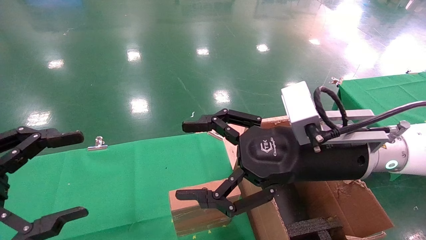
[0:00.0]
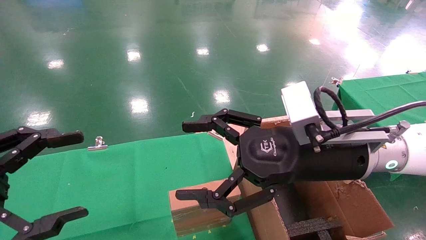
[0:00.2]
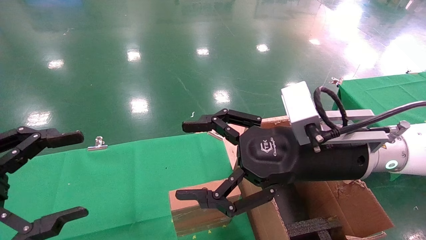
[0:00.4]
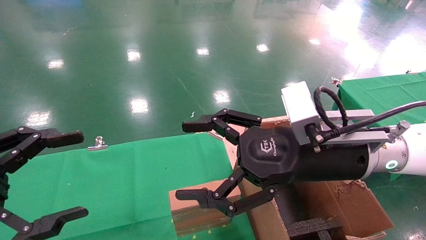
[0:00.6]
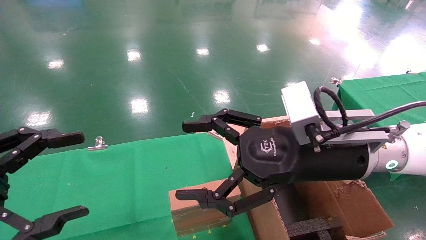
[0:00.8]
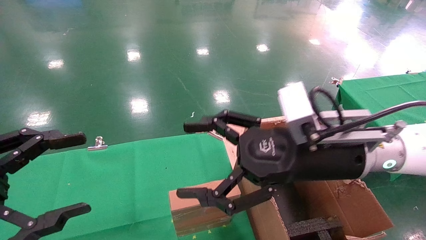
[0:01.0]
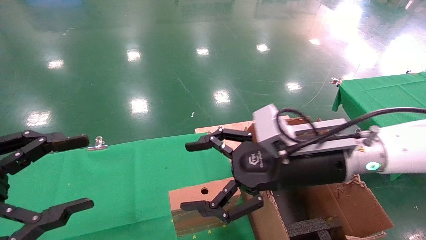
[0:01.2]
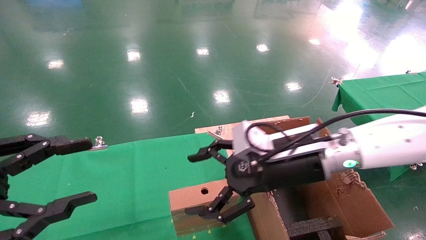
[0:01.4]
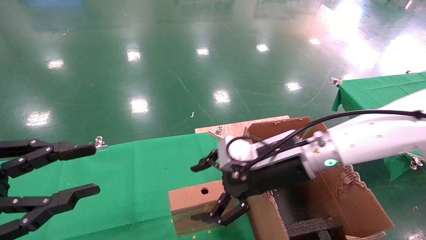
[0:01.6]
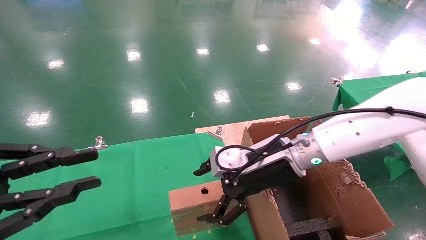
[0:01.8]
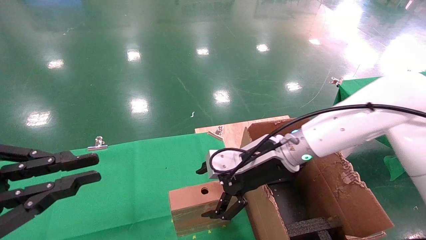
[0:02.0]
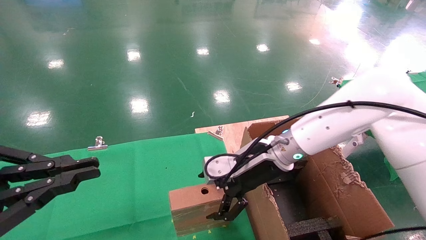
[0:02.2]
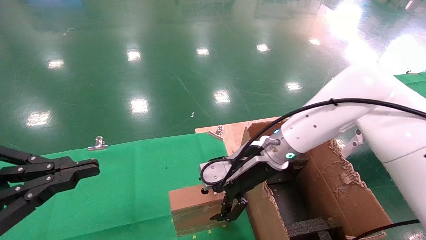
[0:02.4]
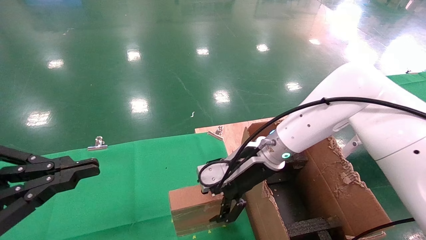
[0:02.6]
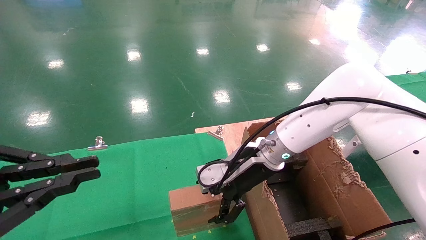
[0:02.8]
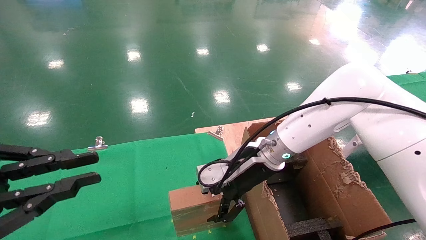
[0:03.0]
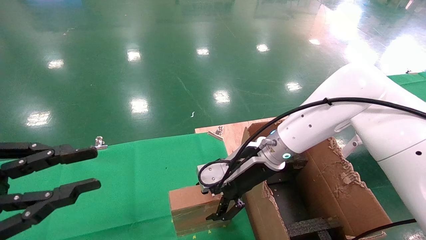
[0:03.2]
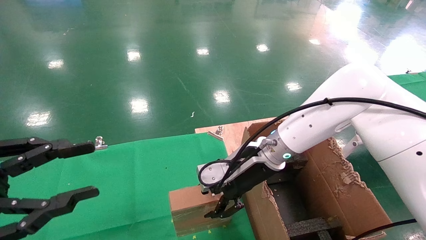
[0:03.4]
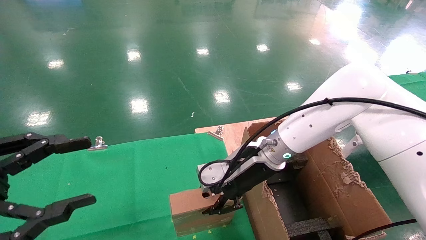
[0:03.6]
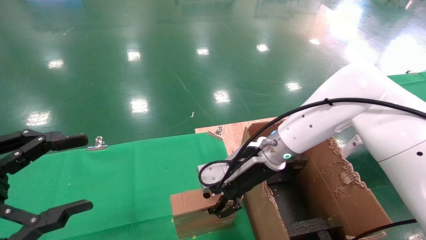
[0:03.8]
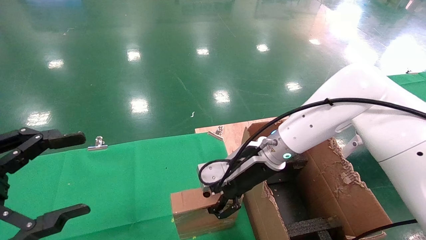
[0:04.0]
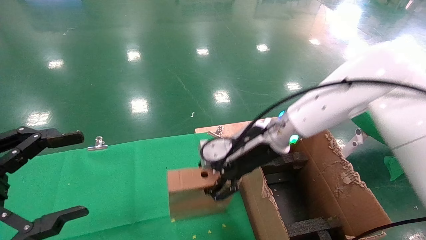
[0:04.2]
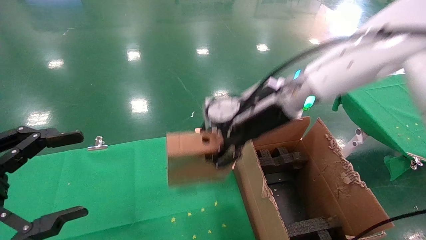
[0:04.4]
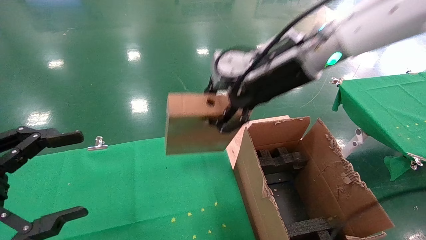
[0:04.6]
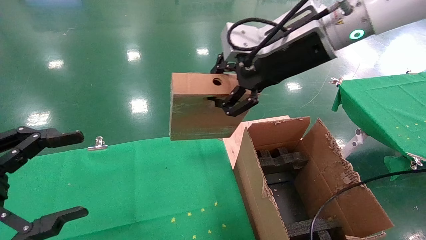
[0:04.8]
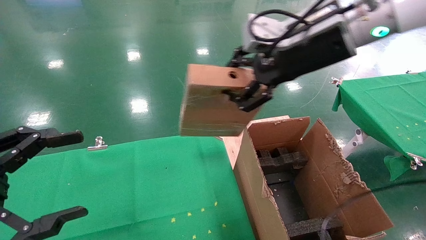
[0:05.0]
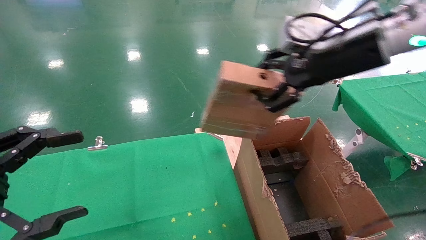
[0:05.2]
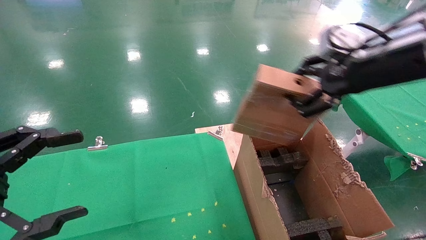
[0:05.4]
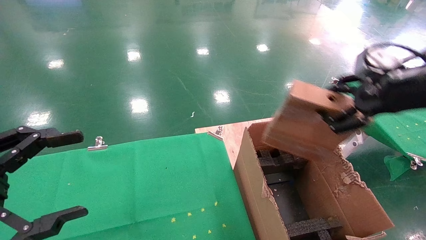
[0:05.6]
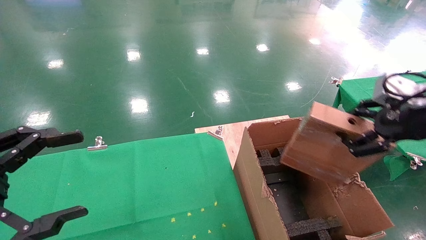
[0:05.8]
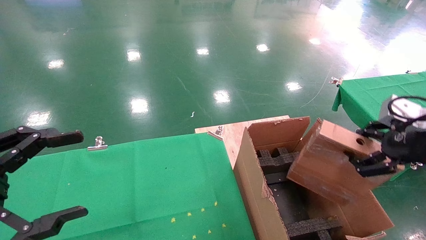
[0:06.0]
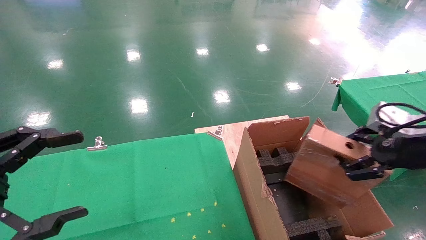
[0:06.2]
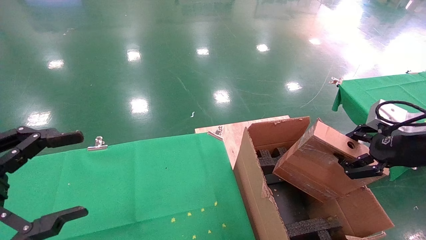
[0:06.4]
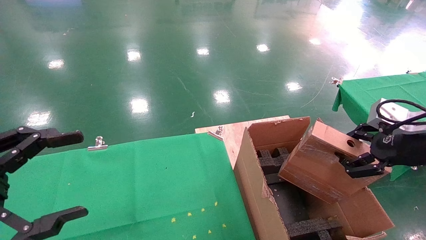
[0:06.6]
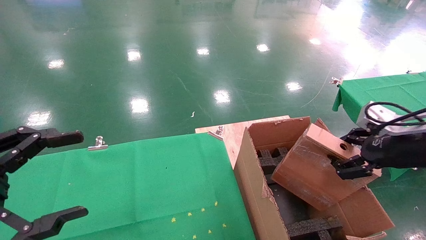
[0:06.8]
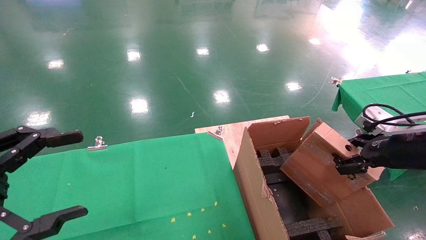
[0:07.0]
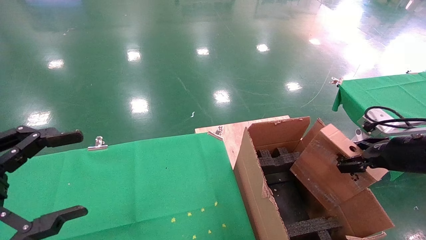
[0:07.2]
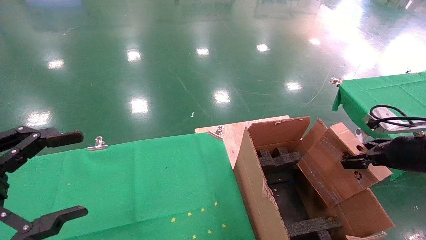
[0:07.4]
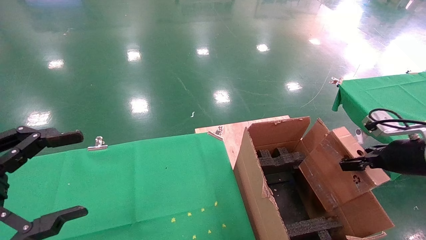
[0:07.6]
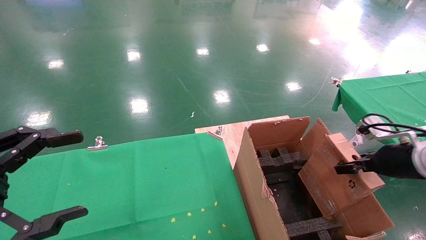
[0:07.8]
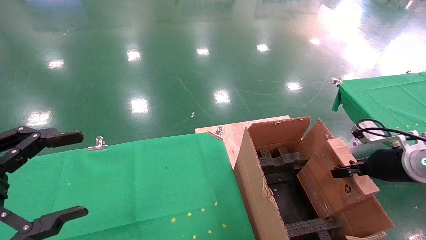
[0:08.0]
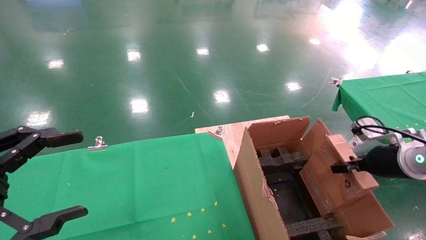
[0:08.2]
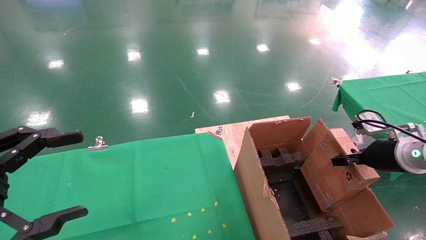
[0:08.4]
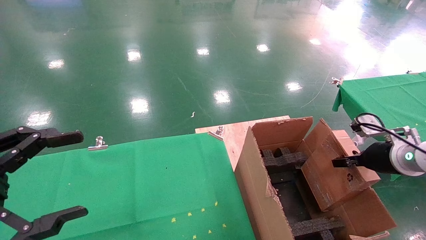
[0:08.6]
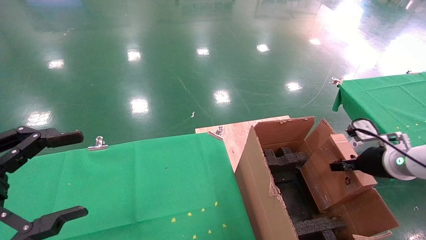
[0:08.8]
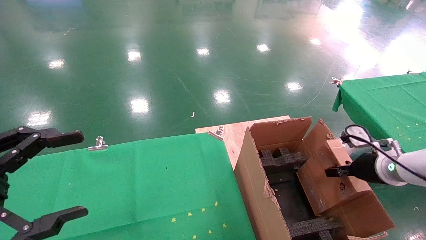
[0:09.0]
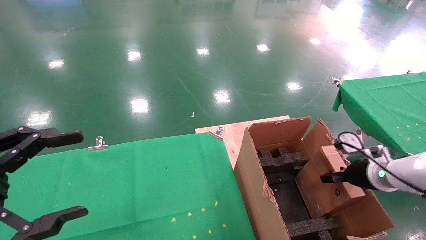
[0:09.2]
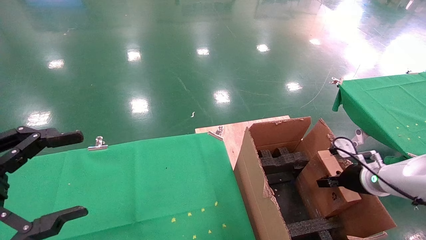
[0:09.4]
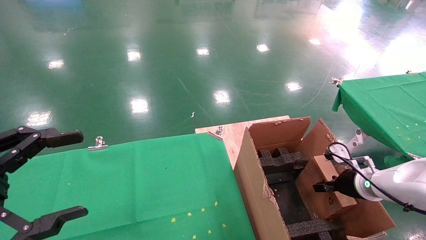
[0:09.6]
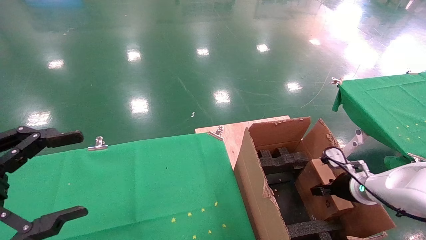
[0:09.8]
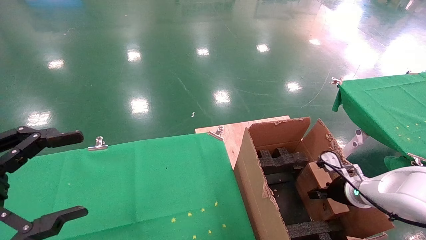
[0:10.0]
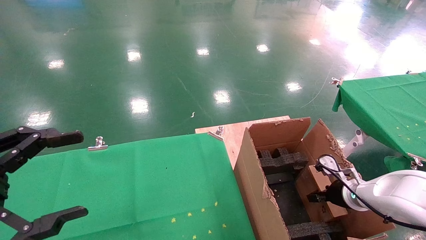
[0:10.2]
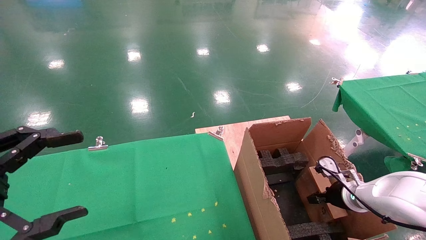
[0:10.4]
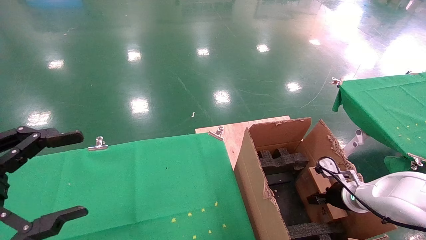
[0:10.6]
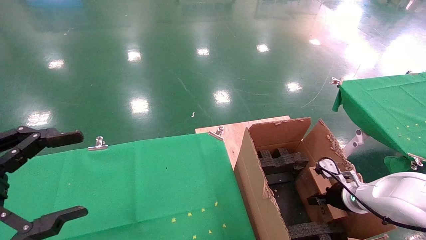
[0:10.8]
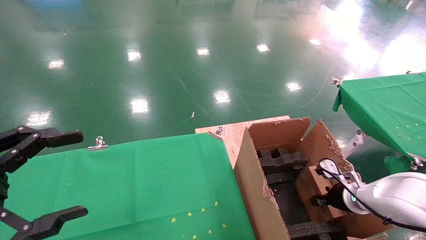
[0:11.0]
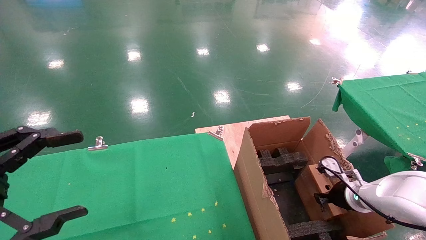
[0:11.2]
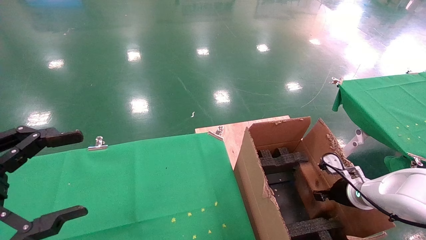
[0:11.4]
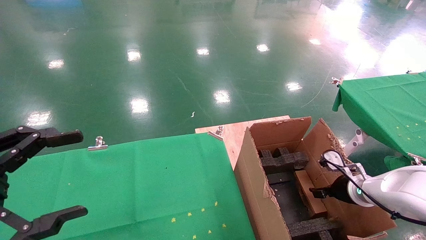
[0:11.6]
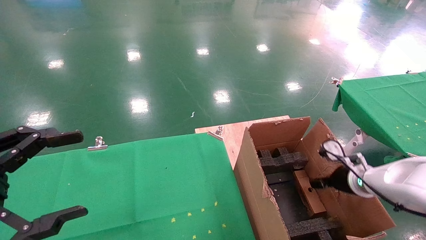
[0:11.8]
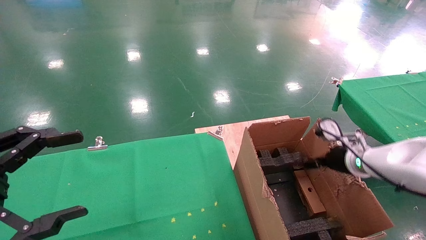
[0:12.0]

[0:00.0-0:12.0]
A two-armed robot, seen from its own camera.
Task of the whole recording: using a robotic arm to pick up a cardboard box and palace it the carton.
Step, 0:01.2 to 0:03.6: Pick up the mouse and the power cord paper box.
Step, 0:03.8 to 0:11.8: Place the mouse and the power cord paper box into the container.
0:00.0 to 0:01.6: The left gripper closes its fingers, while the right gripper shifts about 5 cm forward.
0:01.6 to 0:03.0: The left gripper closes its fingers; the right gripper shifts roughly 5 cm forward.
0:03.0 to 0:04.4: The right gripper heads upward, covering roughly 15 cm, and closes, while the left gripper opens its fingers.
0:04.4 to 0:06.0: The right gripper is displaced to the right and backward by approximately 30 cm.
0:06.0 to 0:07.6: The right gripper shifts roughly 10 cm downward and forward.
0:07.6 to 0:09.0: The right gripper heads downward and forward, covering about 10 cm.
0:09.0 to 0:10.4: The right gripper shifts about 10 cm downward.
0:10.4 to 0:12.0: The right gripper shifts some 10 cm upward, and opens its fingers.

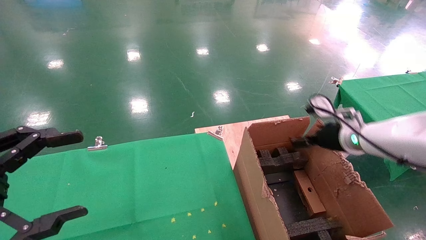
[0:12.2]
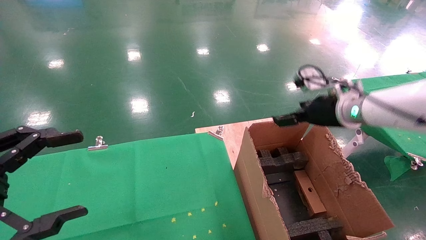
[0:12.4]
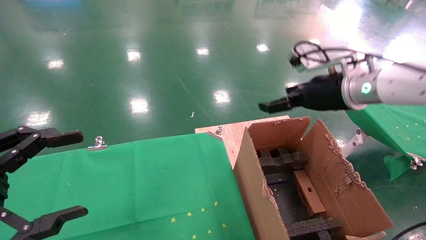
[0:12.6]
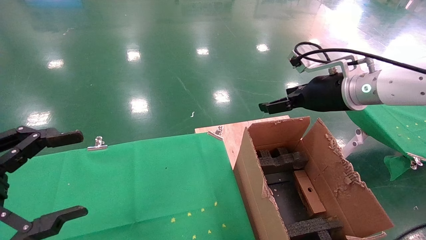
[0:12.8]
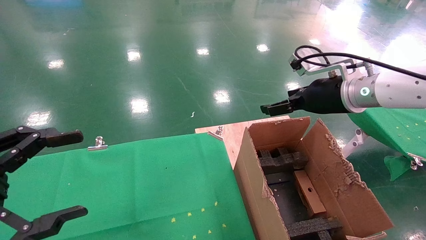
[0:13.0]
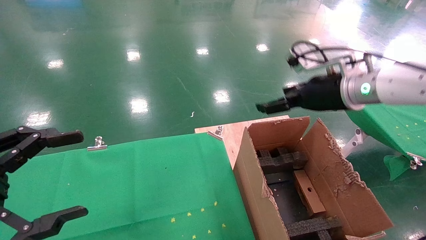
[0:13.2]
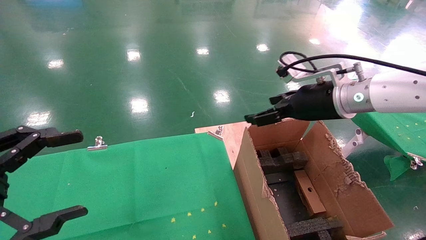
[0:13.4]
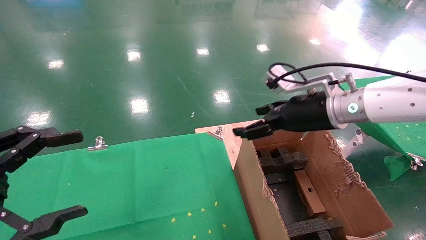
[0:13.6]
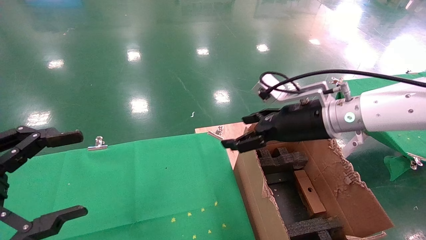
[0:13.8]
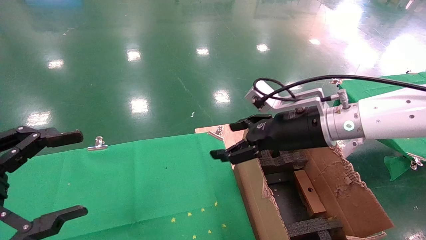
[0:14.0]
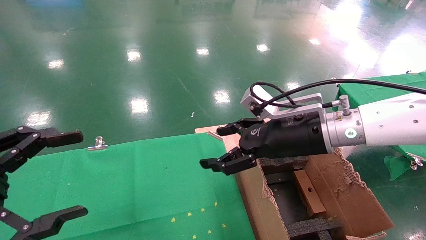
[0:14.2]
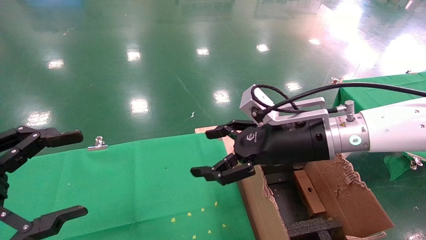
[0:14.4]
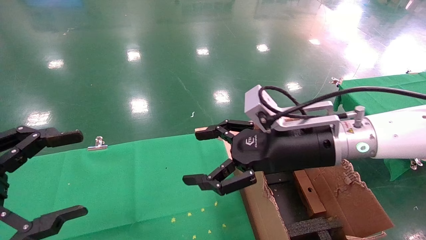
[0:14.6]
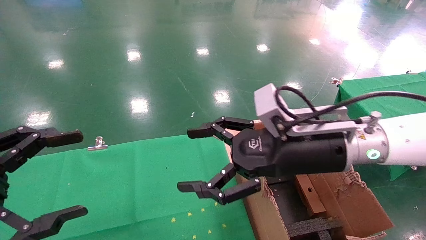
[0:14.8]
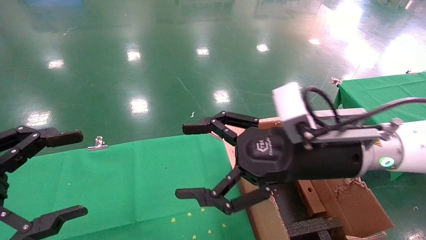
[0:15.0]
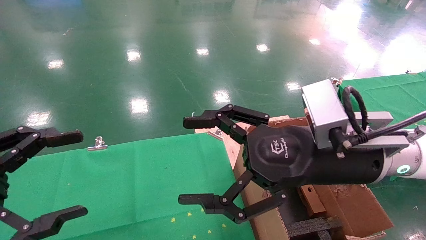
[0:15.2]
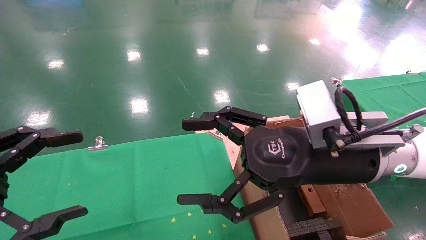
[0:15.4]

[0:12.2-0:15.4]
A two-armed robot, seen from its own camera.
Task of the whole recording: using a robotic arm to pick up a cardboard box and palace it the carton.
0:12.2 to 0:13.8: The right gripper is displaced to the left and upward by roughly 15 cm.
0:13.8 to 0:15.4: The right gripper is displaced backward by some 10 cm.

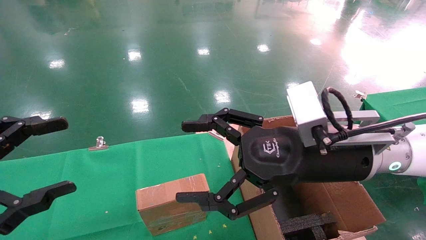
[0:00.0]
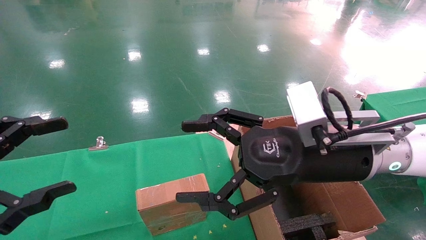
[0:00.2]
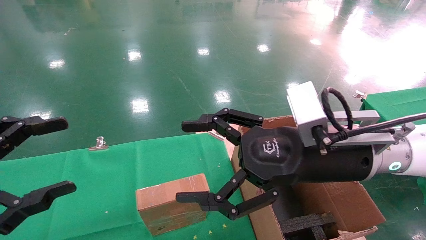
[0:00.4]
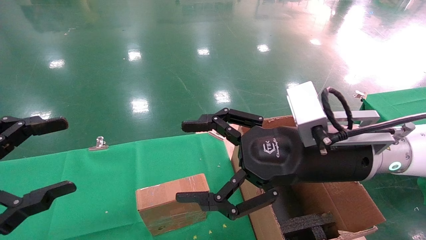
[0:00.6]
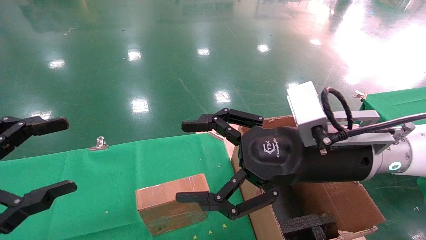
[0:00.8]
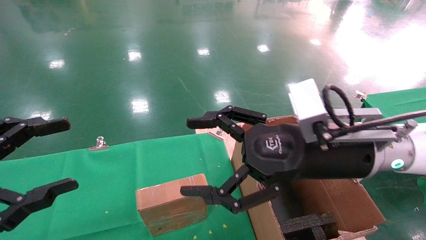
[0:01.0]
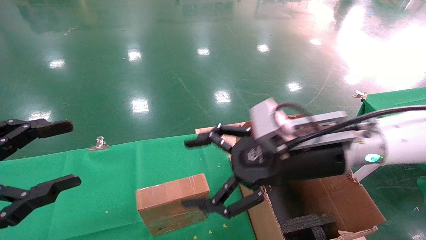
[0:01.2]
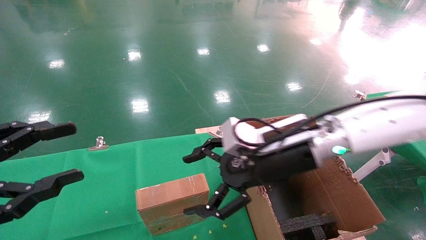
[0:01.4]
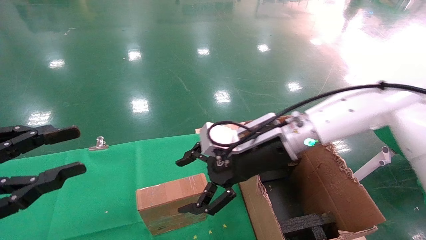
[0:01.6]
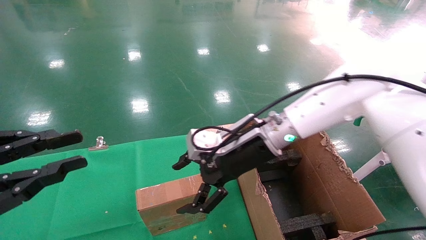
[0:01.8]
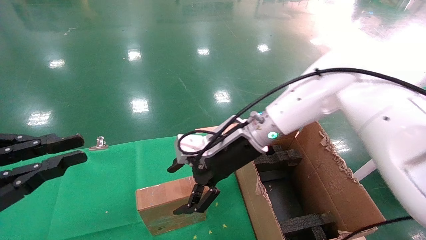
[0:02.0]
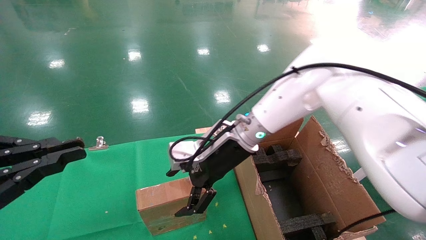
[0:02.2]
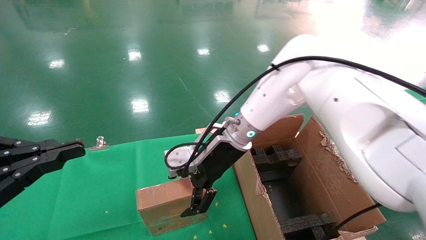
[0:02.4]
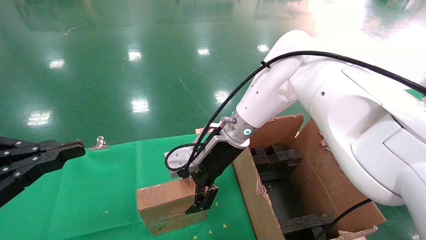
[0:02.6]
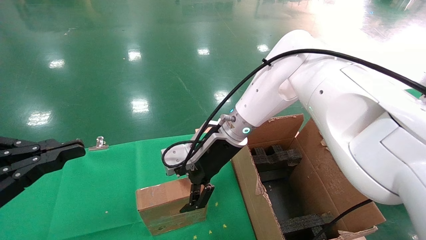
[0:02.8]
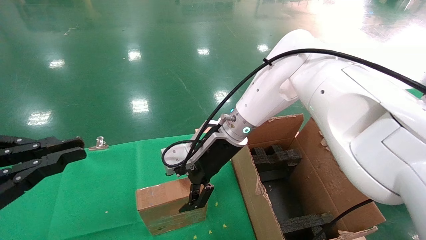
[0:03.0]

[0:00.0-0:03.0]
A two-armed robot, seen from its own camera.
Task of the whole recording: using a robotic arm to pick up a cardboard box and palace it the carton.
0:00.0 to 0:01.6: The left gripper closes up, while the right gripper travels forward and to the left by roughly 10 cm.
0:01.6 to 0:03.0: The right gripper goes approximately 10 cm forward and to the left. Meanwhile the left gripper closes.
